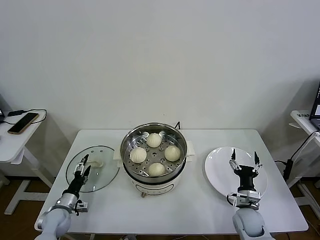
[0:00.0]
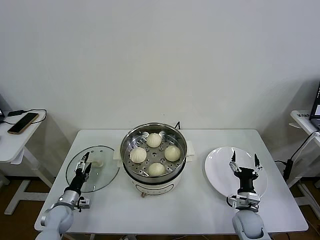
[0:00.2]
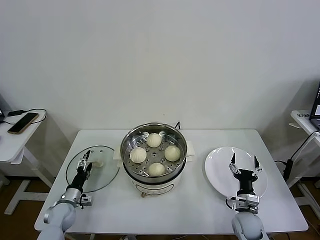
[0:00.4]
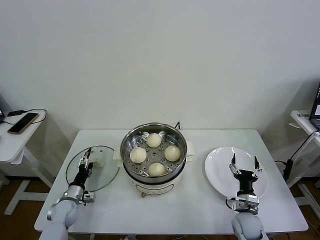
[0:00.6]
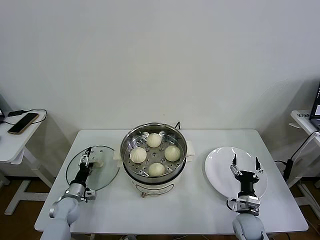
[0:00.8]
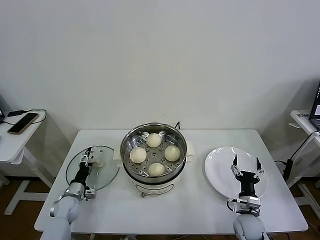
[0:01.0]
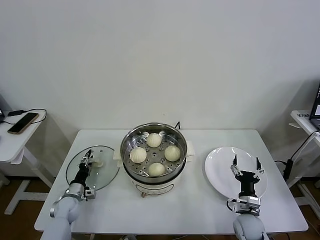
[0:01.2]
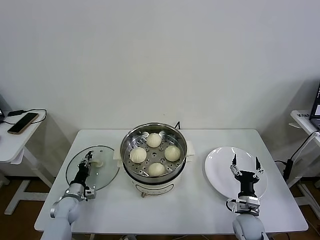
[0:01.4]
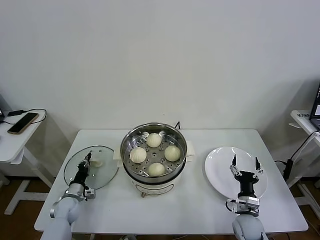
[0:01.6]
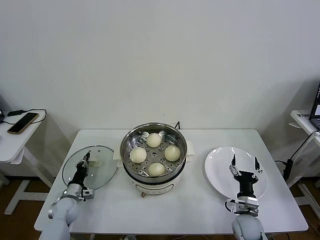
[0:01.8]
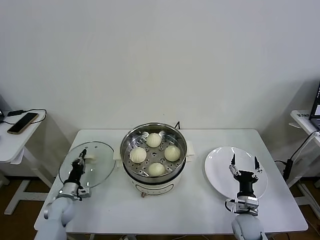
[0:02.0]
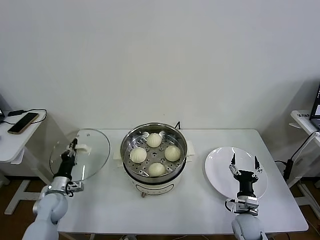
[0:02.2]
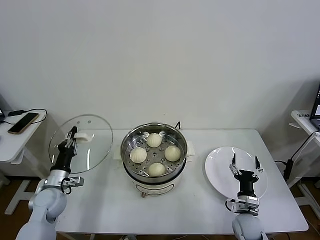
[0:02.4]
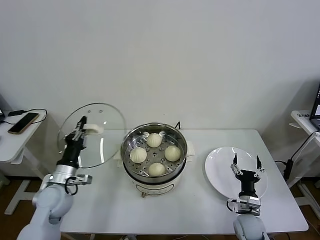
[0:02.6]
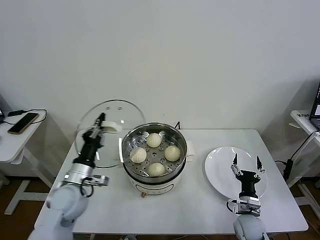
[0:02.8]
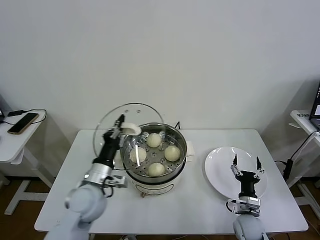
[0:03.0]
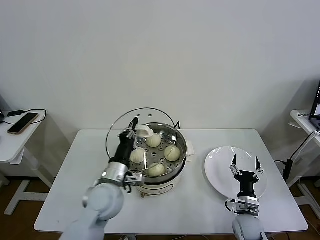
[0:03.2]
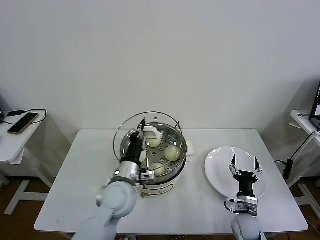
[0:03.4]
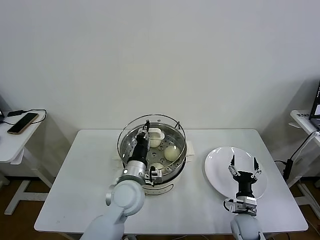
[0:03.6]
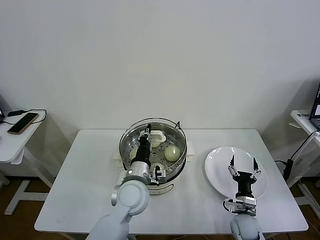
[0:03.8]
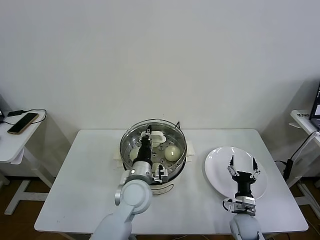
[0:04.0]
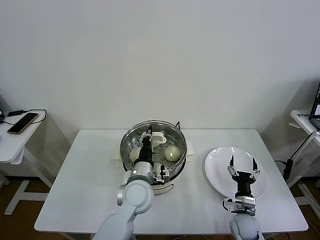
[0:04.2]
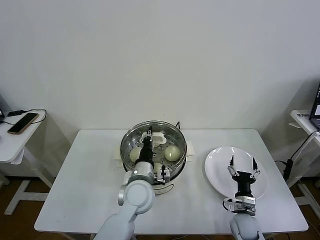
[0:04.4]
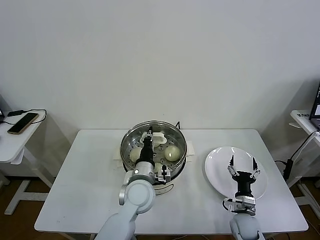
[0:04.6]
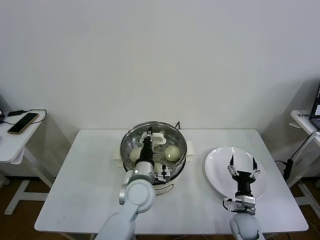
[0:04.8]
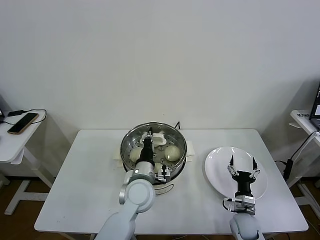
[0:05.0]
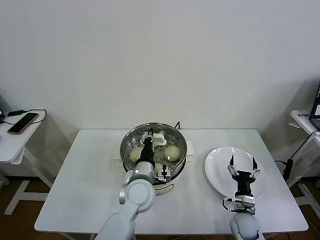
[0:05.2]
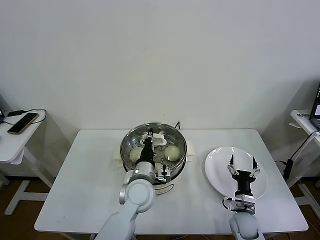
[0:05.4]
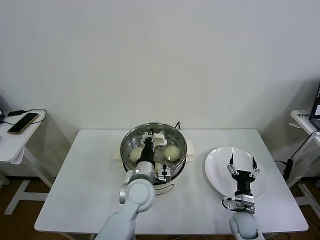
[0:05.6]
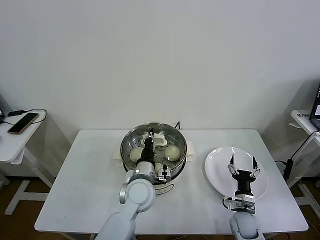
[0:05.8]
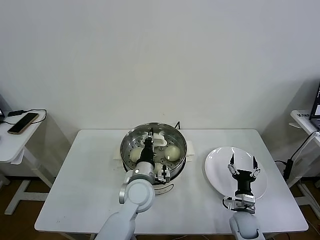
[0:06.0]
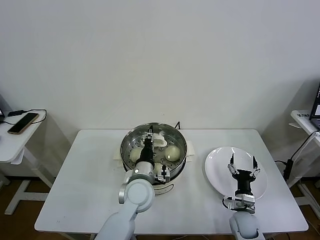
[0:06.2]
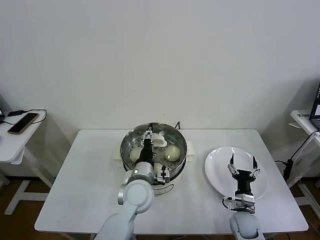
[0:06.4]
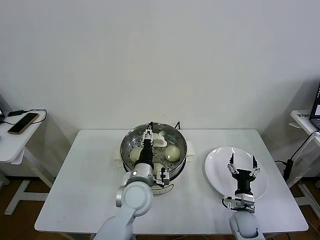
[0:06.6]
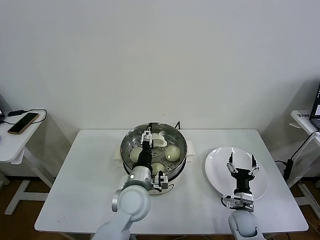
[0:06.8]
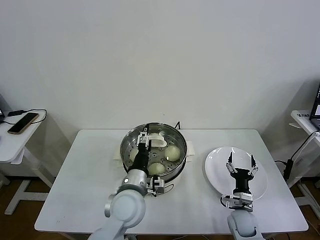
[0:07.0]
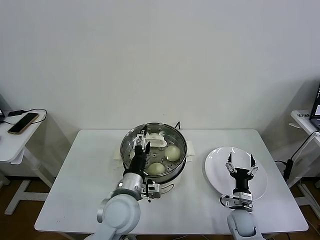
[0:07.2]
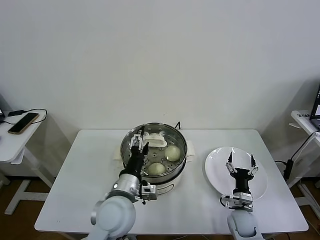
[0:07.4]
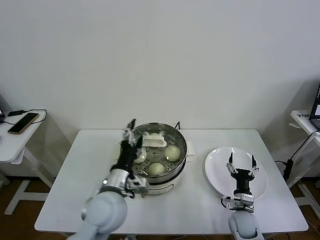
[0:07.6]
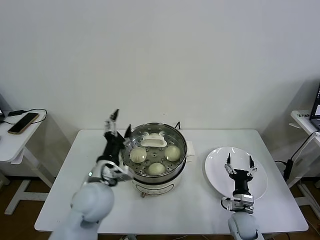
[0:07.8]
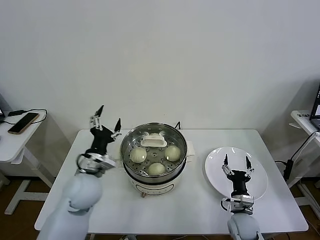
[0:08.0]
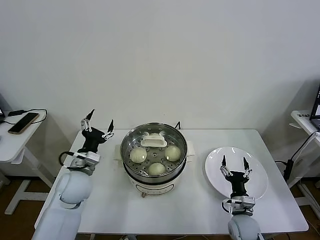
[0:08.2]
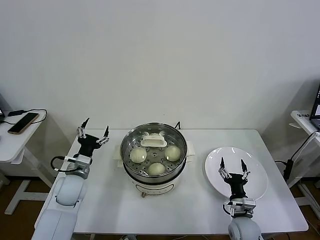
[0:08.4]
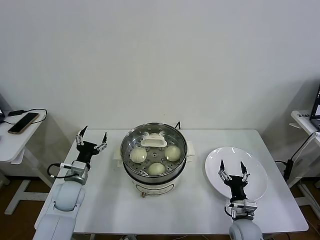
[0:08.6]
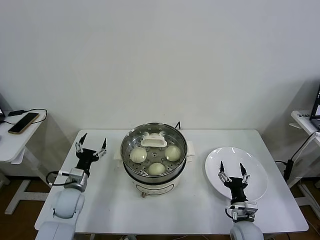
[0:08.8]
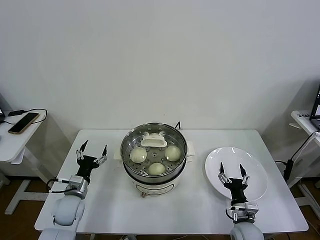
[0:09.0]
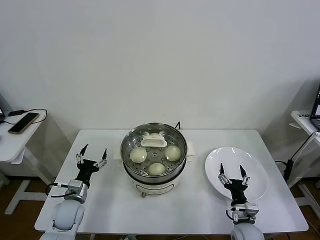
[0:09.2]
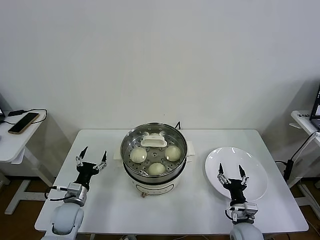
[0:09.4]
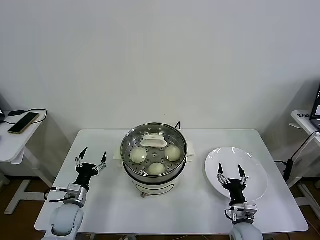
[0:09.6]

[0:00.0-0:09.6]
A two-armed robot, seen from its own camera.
Task of the whole recording: take steamed baozi put them in steamer then cover it.
Step, 0:02.0 to 0:06.4: Place the pot lid on the steamer with left gripper.
0:00.0 to 0:01.6: The left gripper shifts roughly 5 cm forward, and closes.
0:01.6 to 0:03.2: The left gripper moves upward and to the right, about 30 cm.
0:03.2 to 0:04.8: The left gripper heads to the right, covering approximately 10 cm.
0:04.8 to 0:06.4: The left gripper opens up.
0:06.4 to 0:08.0: The left gripper shifts some 15 cm to the left and upward, and opens up.
0:08.0 to 0:09.6: The left gripper goes roughly 20 cm downward and to the left.
